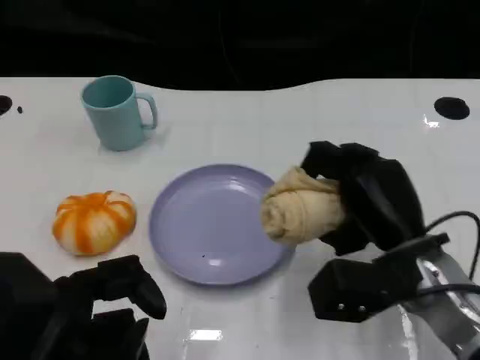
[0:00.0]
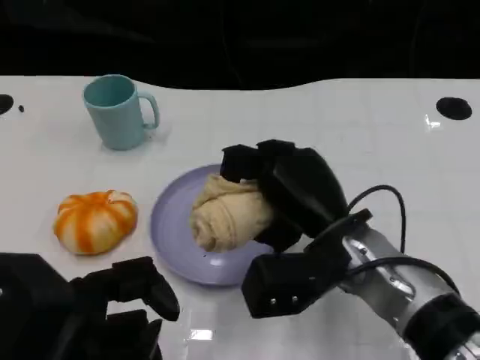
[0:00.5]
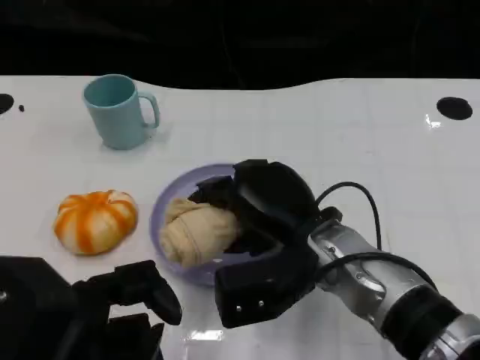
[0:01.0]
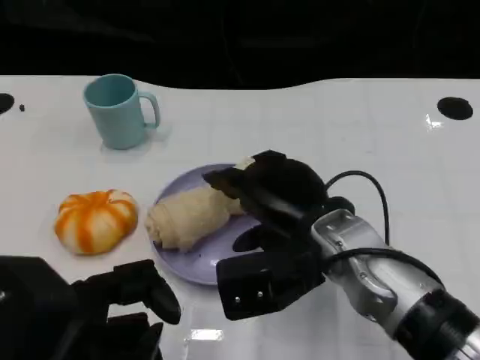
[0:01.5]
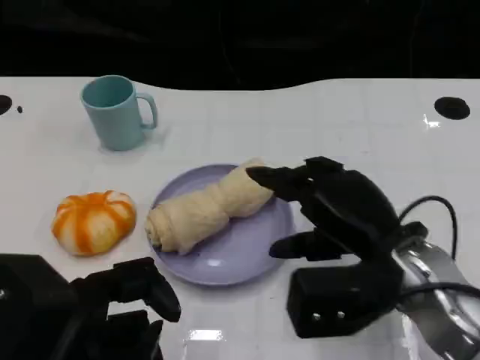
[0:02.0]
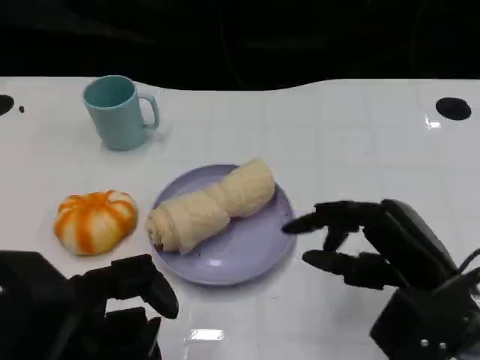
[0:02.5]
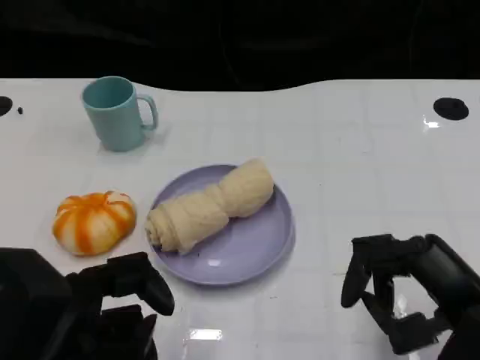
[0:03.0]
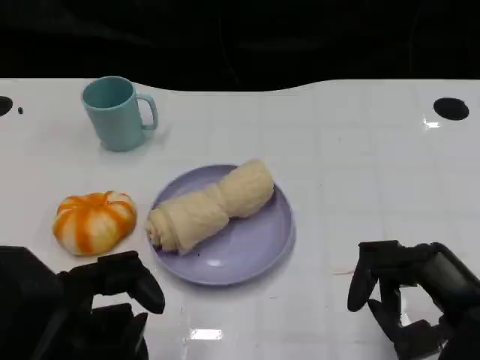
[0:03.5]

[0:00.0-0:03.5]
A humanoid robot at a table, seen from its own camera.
Task of the whole recording: Grasp the towel on the left side of the plate with the left hand and place it into the plate.
0:00.0 to 0:02.0: The right hand moves approximately 10 cm to the left and comes back.
0:02.0 to 0:03.5: The right hand goes approximately 10 cm to the right and backward.
